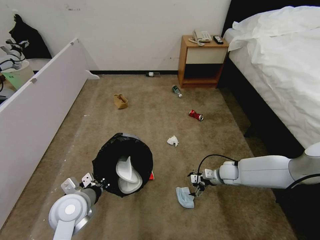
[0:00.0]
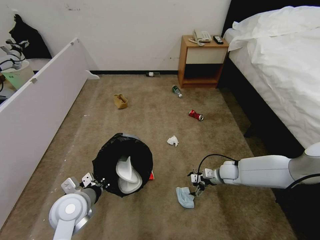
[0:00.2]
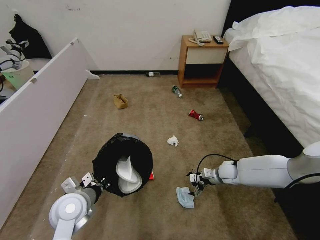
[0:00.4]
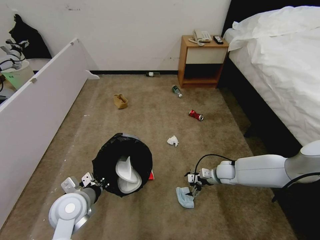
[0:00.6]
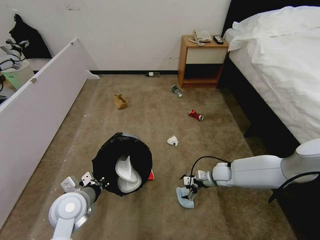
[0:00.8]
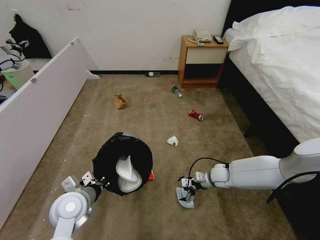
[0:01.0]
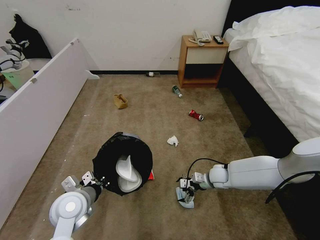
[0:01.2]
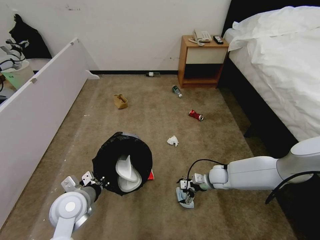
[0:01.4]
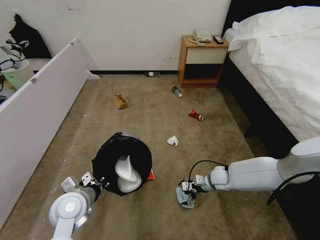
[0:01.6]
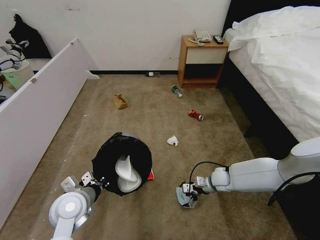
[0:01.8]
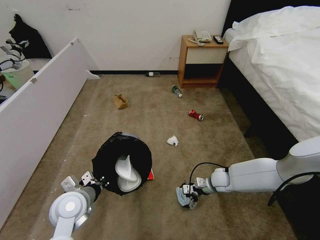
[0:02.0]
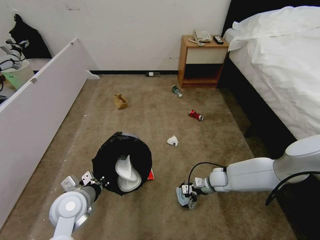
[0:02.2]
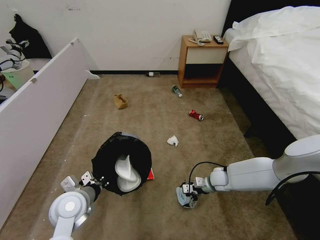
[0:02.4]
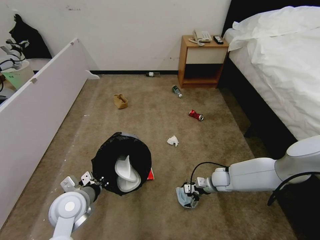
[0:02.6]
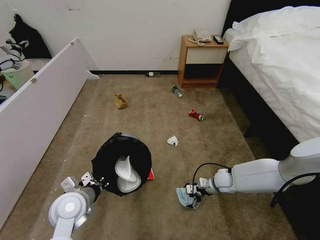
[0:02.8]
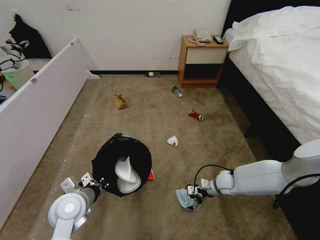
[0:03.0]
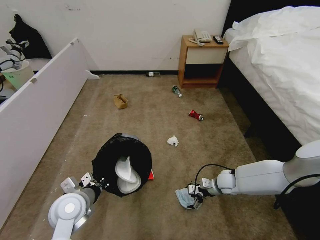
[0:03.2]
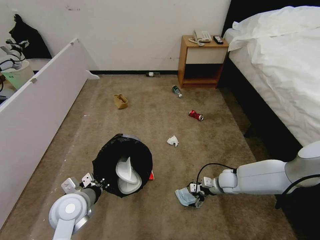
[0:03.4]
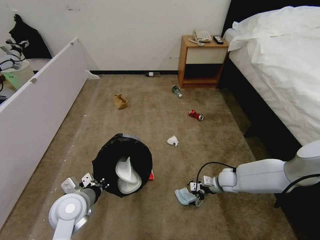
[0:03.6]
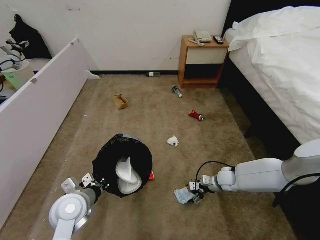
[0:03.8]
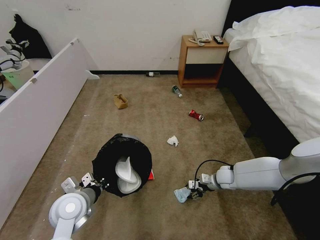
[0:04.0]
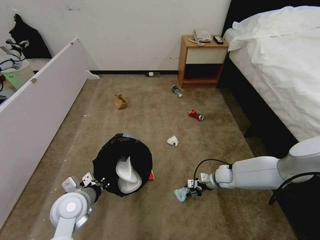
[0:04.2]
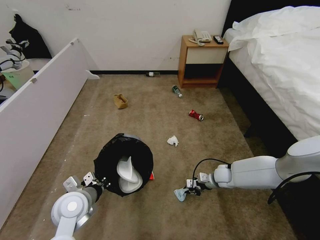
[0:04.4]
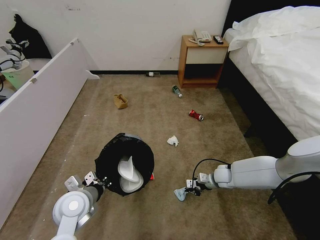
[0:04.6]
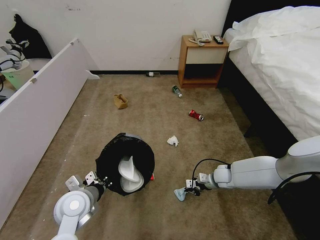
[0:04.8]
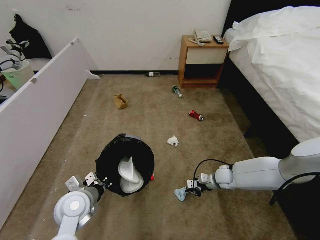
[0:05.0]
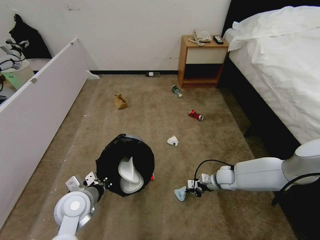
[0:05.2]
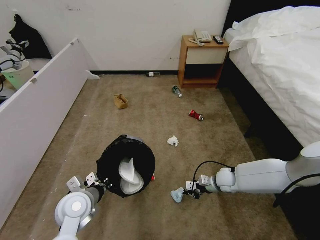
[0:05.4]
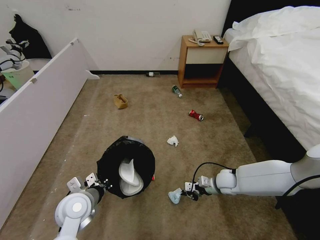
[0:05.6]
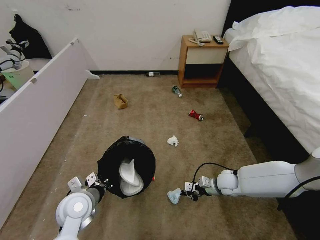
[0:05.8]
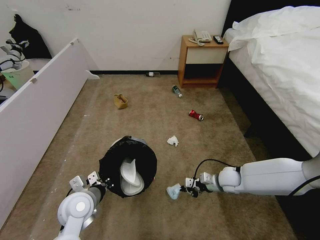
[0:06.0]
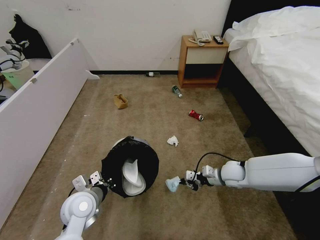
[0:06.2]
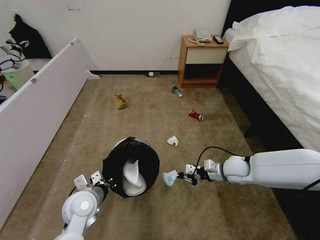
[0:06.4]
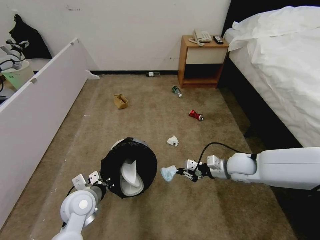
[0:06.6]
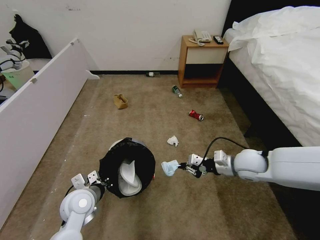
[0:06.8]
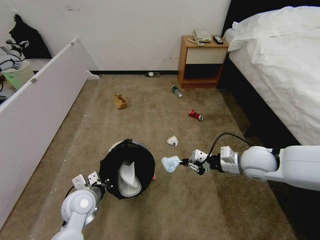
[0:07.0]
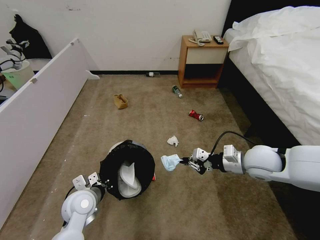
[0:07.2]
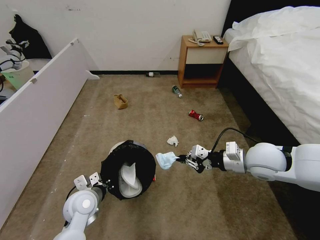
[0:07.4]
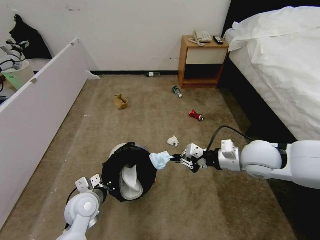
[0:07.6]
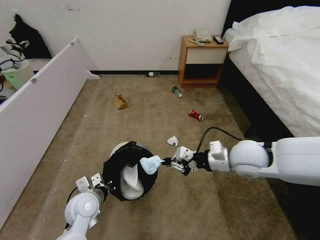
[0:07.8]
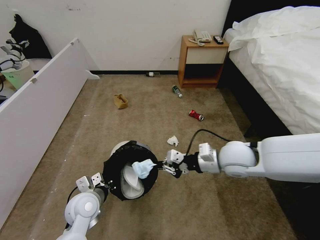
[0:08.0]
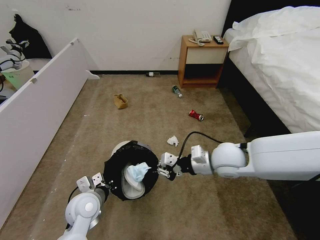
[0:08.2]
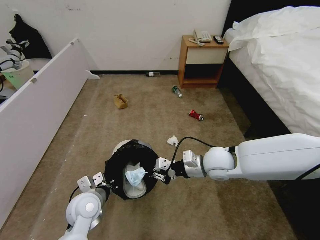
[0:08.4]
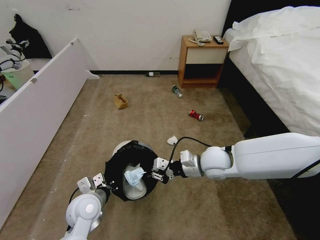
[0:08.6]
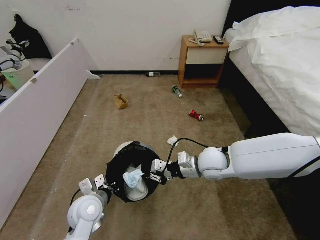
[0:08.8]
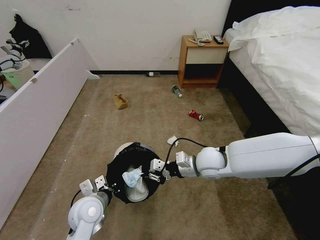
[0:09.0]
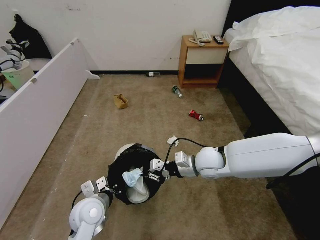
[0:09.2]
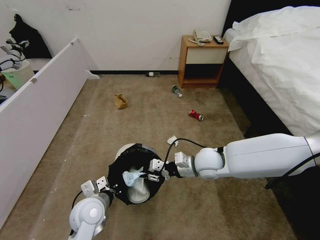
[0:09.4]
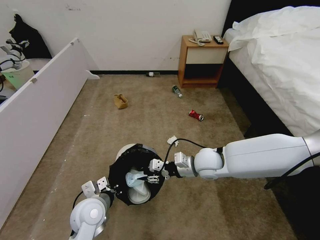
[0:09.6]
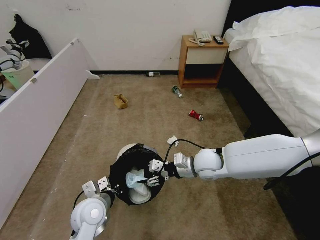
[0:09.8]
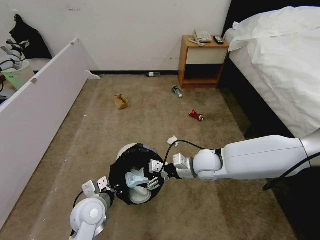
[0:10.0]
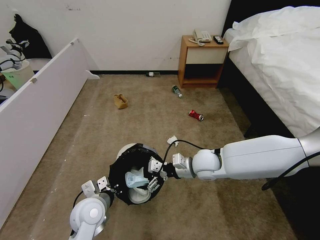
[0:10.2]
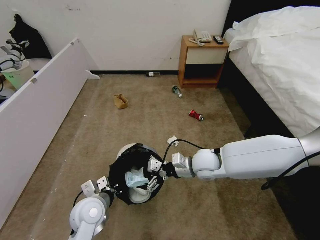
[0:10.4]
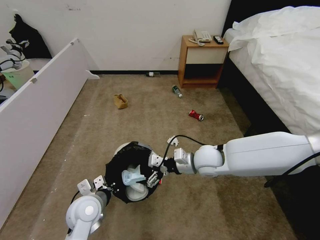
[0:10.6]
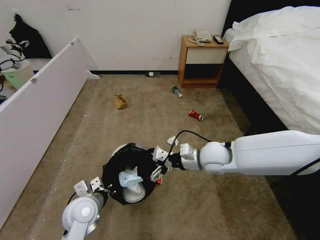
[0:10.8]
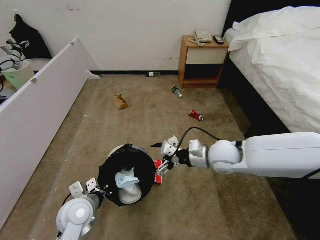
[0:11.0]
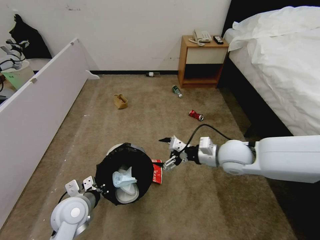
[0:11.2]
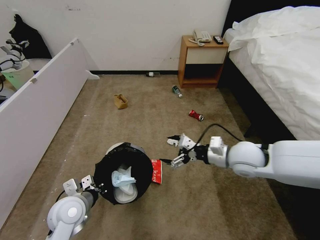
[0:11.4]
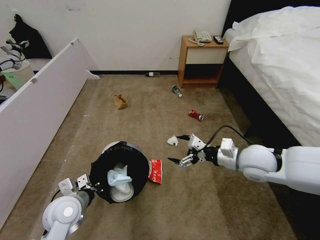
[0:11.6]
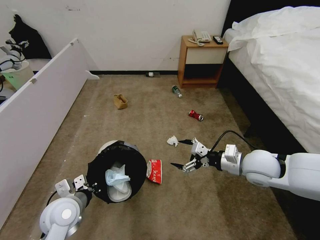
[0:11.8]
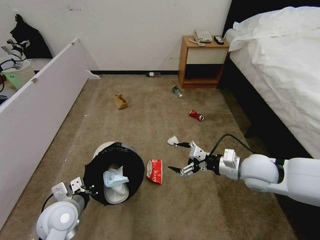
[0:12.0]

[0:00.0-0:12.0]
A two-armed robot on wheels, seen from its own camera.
Task of the whole recording: Pick up the trash bin and place the garbage on the floor into it.
0:00.0 to 0:03.0: The grippers move only a little.
0:03.0 to 0:04.4: The right gripper closes its fingers.
0:04.4 to 0:06.0: The right gripper moves about 5 cm.
0:06.0 to 0:07.6: The right gripper heads upward, covering approximately 20 cm.
0:07.6 to 0:09.0: The right gripper goes approximately 15 cm to the left and downward.
0:09.0 to 0:10.4: The right gripper opens up.
0:10.4 to 0:12.0: The right gripper moves to the right, some 15 cm. Meanwhile the left gripper travels to the left by about 5 cm.

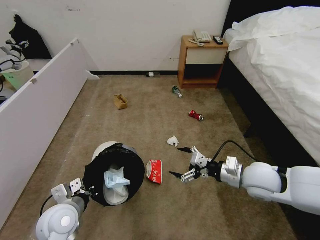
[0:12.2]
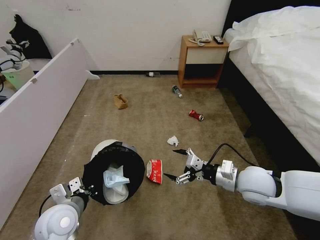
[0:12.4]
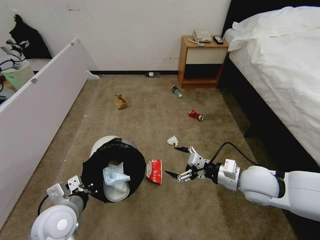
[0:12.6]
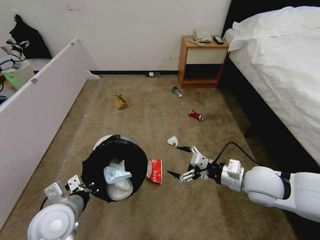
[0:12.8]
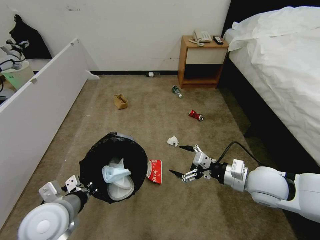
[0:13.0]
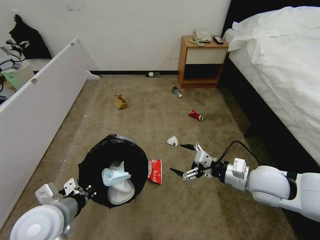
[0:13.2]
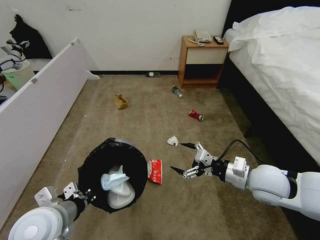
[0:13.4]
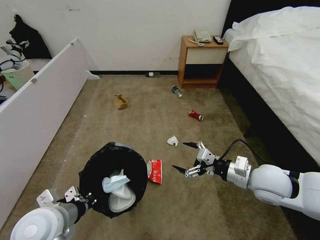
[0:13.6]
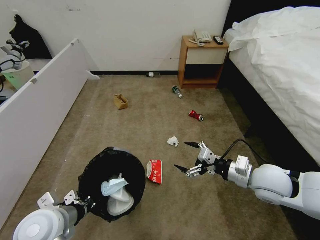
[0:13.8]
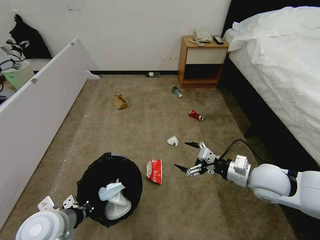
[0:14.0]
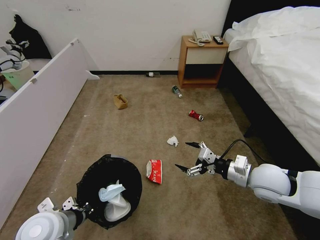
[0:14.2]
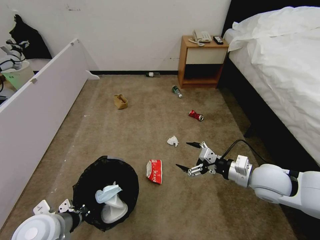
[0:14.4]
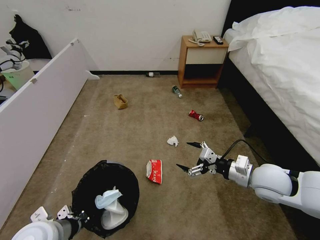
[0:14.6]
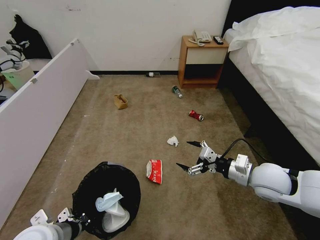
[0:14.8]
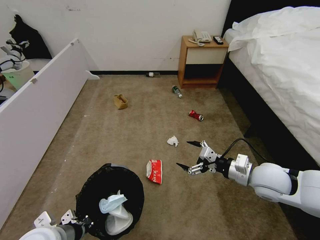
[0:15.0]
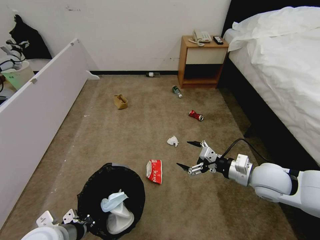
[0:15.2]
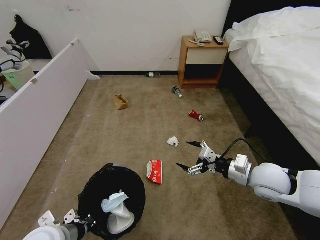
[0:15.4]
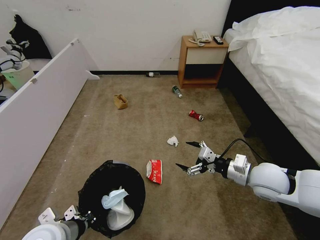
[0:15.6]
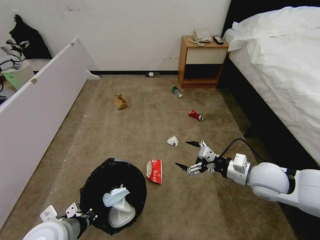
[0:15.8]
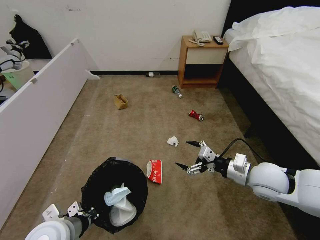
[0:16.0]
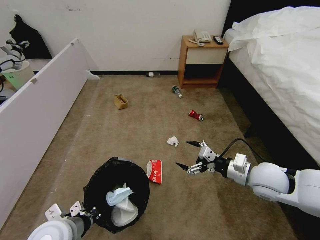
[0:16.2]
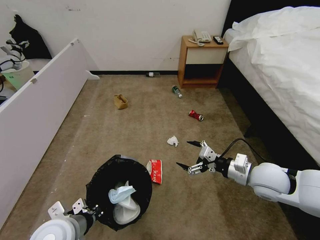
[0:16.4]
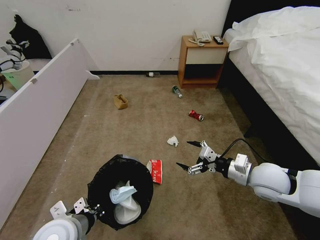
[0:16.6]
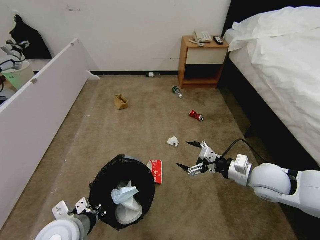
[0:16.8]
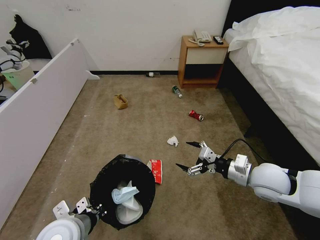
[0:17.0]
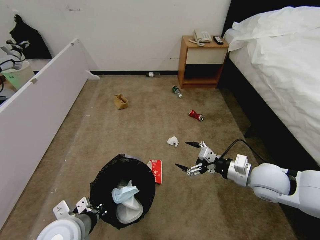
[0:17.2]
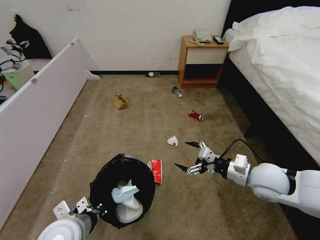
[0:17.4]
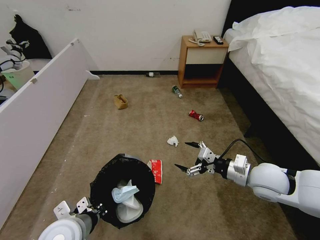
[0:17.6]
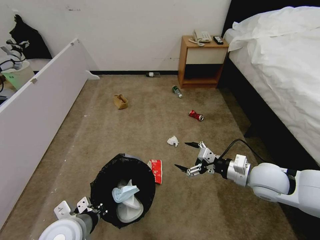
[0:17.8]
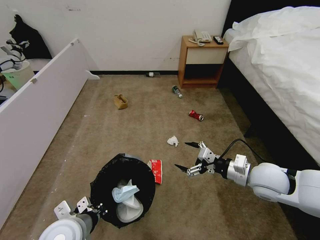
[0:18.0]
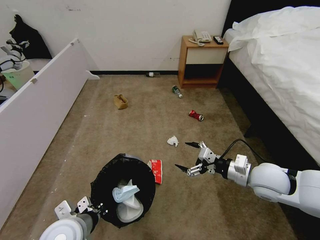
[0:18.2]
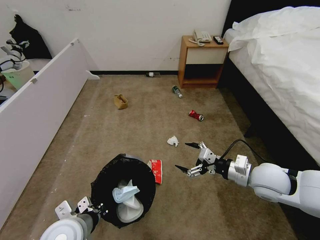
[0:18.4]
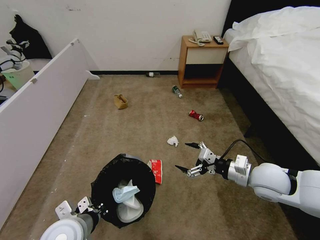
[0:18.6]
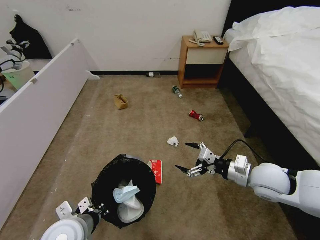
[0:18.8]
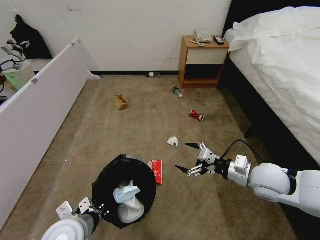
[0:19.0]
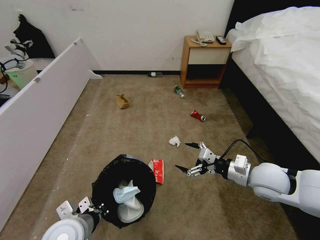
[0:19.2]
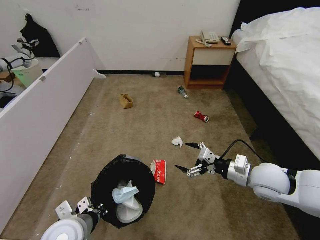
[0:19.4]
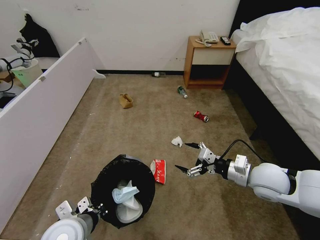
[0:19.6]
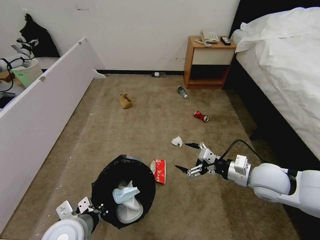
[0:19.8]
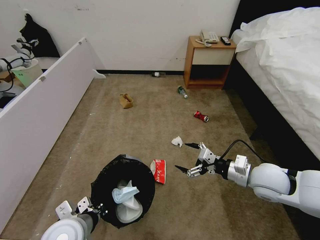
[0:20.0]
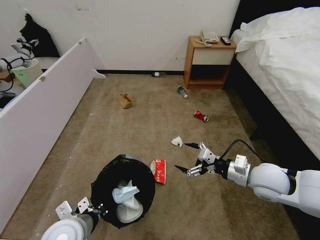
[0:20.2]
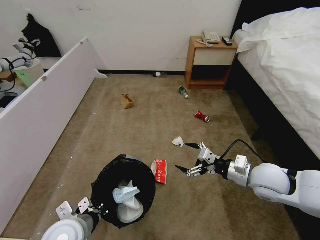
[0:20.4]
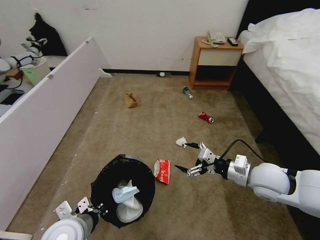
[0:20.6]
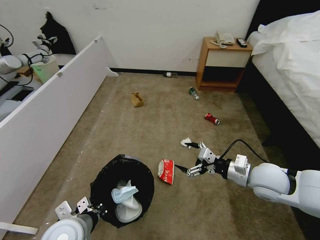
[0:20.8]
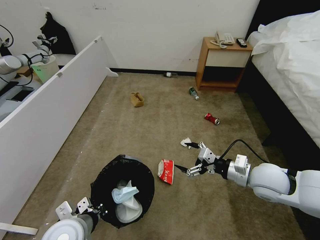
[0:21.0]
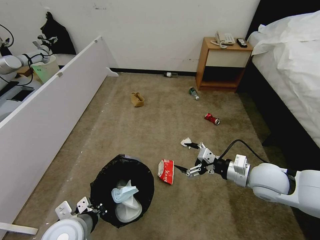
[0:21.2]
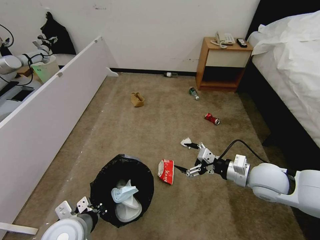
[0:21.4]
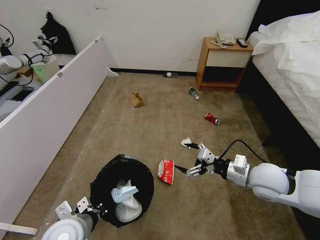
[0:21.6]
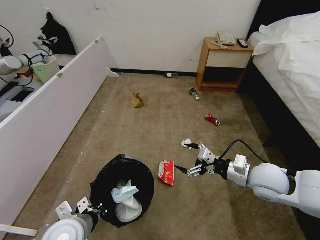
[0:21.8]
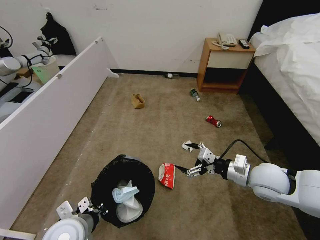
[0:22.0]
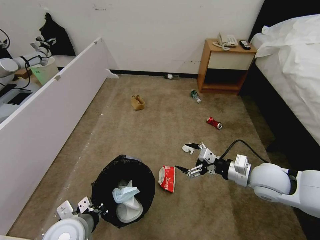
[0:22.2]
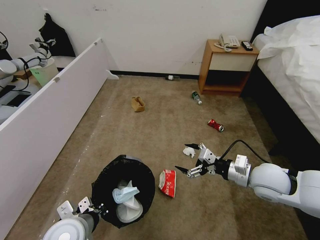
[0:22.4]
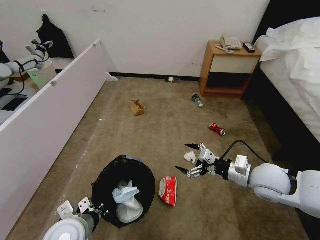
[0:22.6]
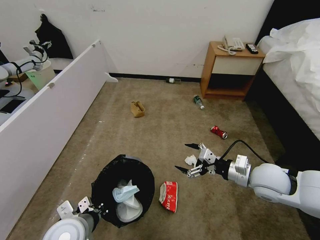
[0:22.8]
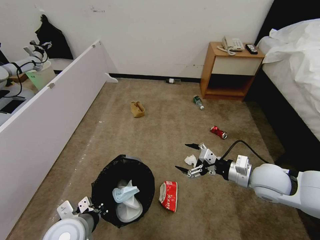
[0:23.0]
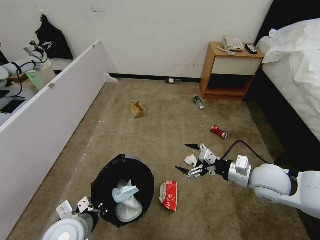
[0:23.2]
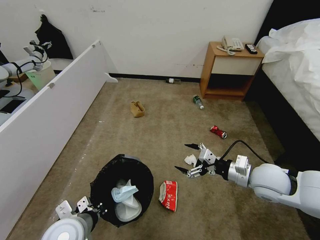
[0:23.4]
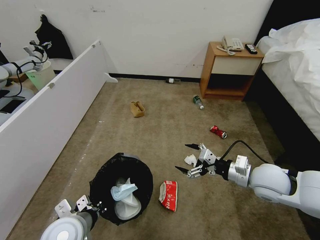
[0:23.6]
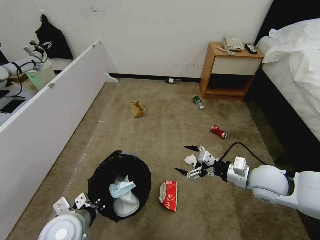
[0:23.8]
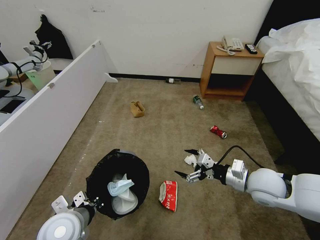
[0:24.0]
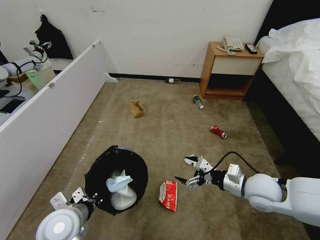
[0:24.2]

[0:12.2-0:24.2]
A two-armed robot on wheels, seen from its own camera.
Task of the whole recording: Pick up the trash bin and place the garbage on the floor into it.
0:13.8 to 0:16.6: The grippers stay close to where they were, moving slightly.
0:16.6 to 0:18.2: Neither gripper changes place.
0:18.2 to 0:19.8: Both grippers stay put.
0:21.2 to 0:22.6: Neither gripper changes place.
0:22.6 to 0:24.2: There are only small adjustments of the grippers.
